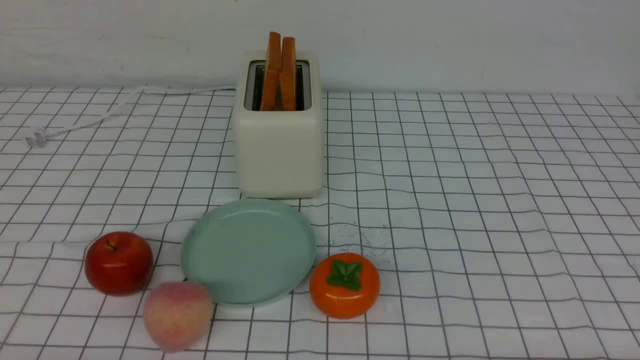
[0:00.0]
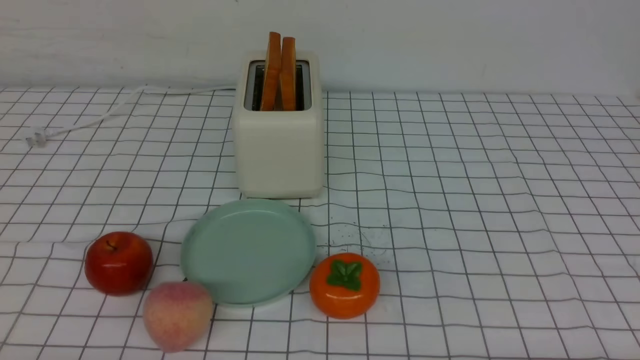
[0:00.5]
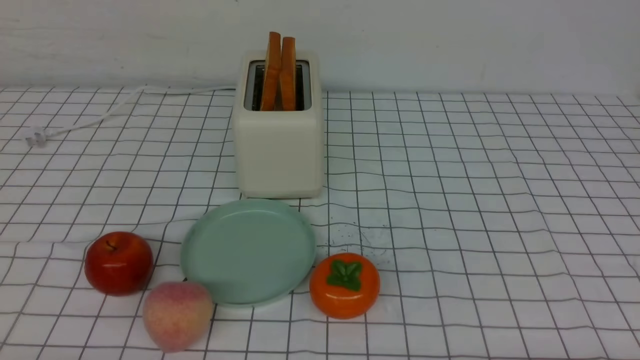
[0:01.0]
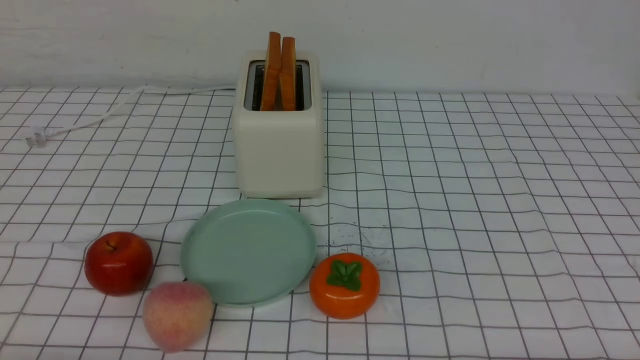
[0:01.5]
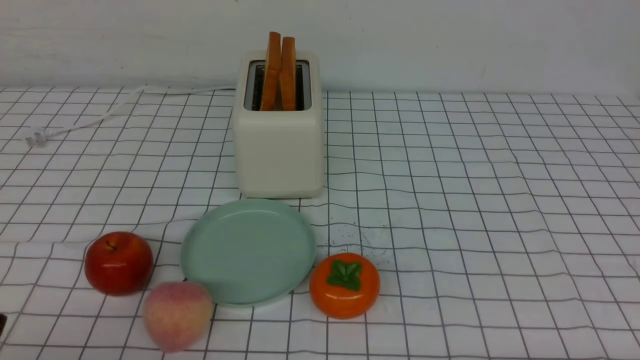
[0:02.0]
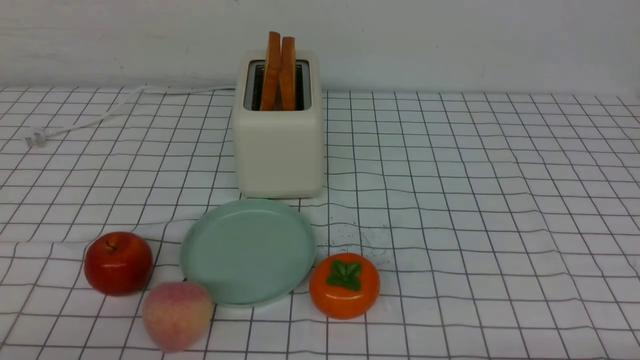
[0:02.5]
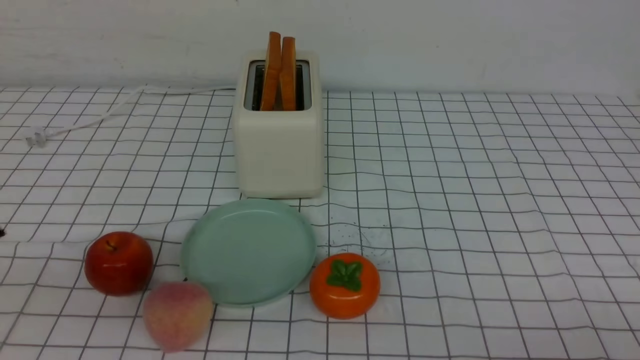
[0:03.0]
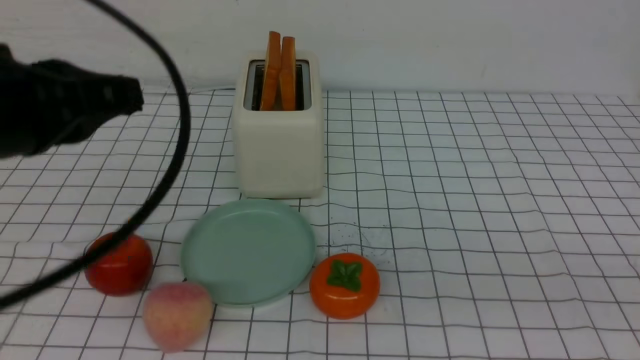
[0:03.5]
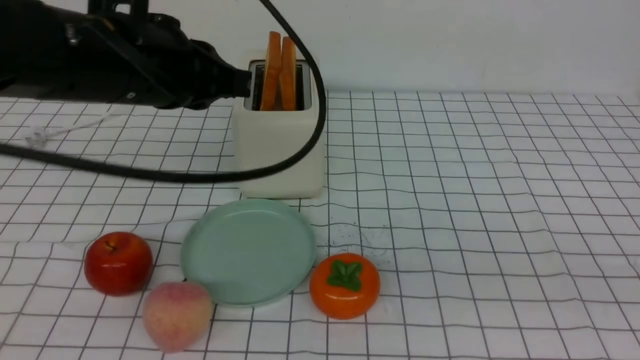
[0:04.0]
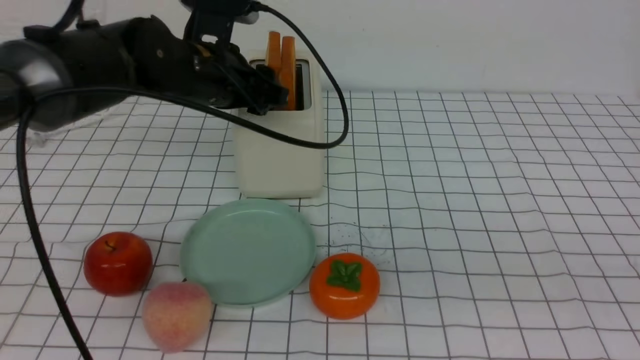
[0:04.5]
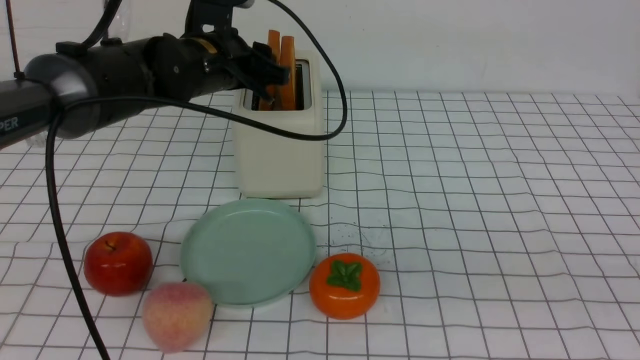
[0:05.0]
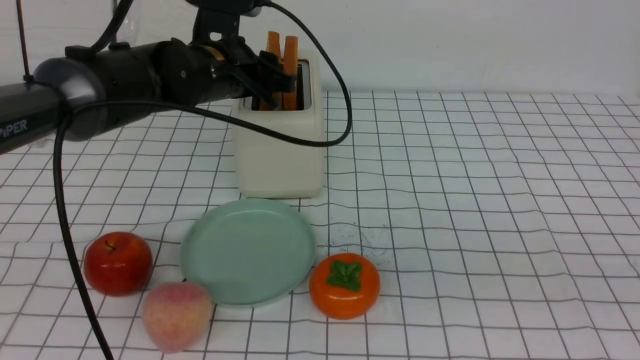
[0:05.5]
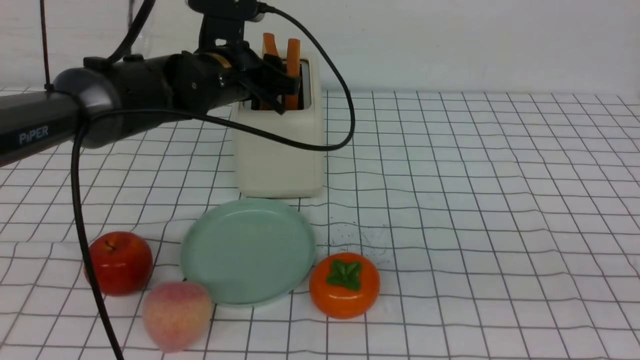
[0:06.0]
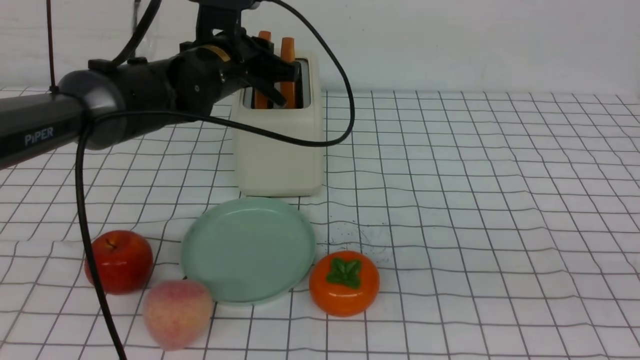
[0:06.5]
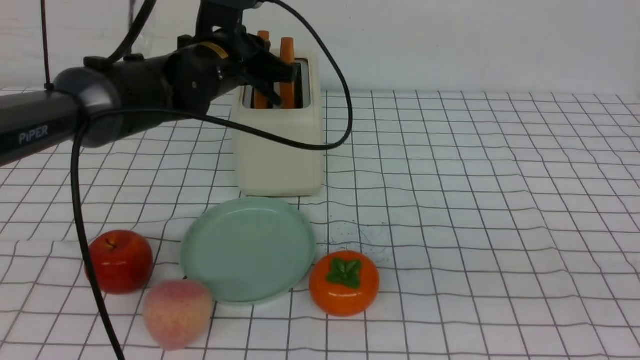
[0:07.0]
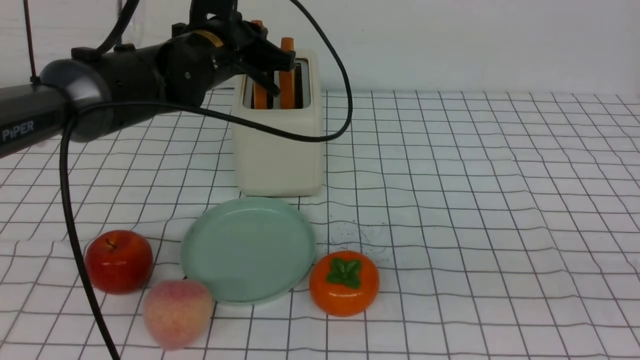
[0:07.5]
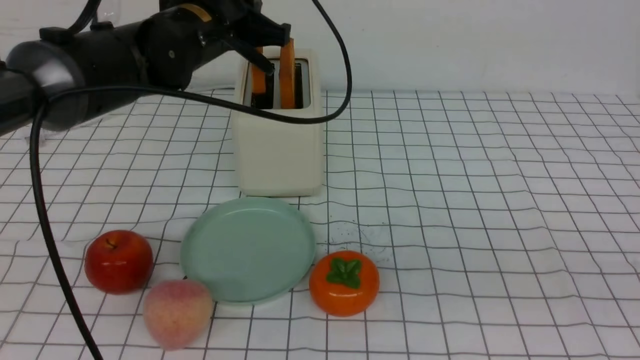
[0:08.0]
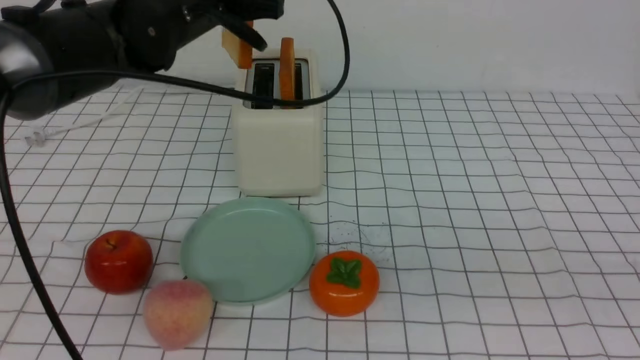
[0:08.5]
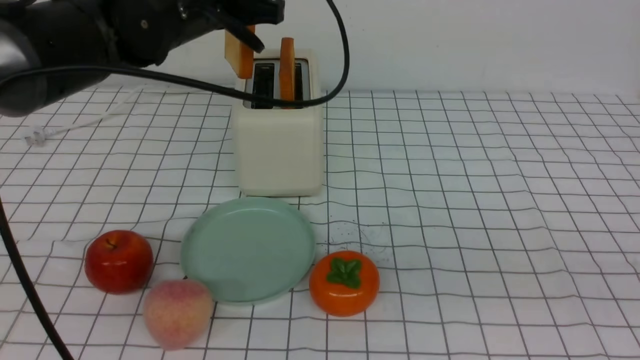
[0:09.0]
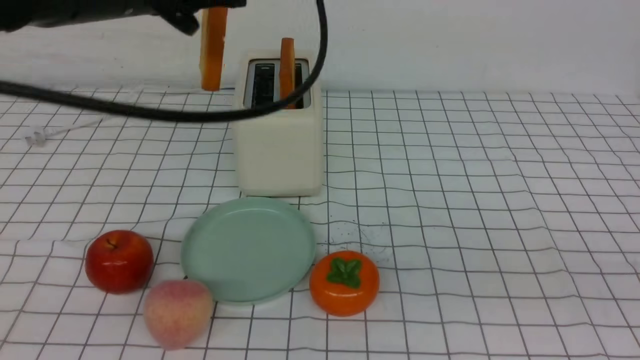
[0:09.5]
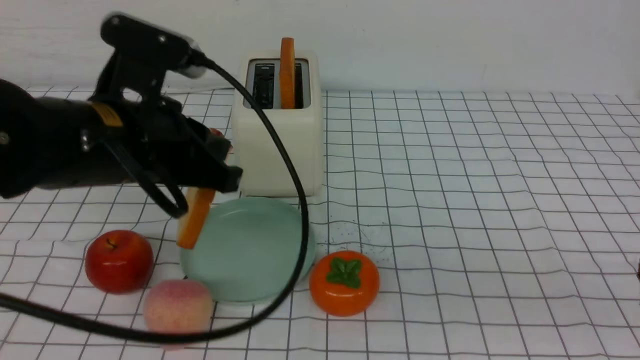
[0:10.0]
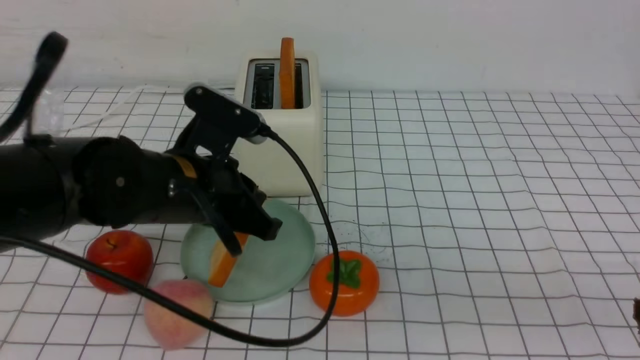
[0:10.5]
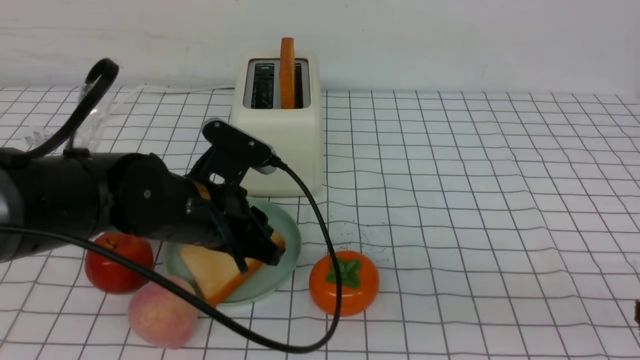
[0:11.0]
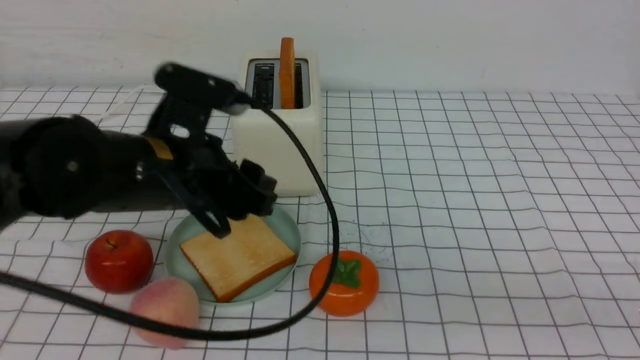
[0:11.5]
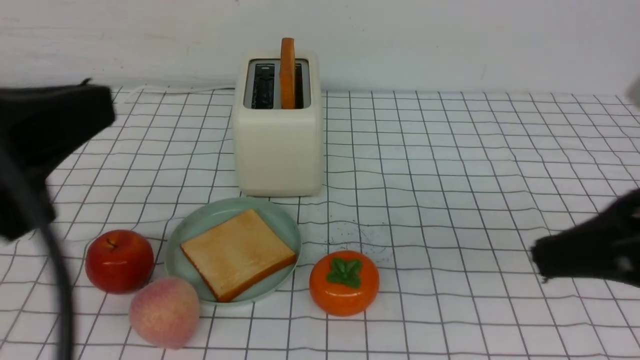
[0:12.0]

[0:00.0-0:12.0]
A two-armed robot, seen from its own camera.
Task of the whole recording: take toasted bread from bread machine on white checkered table place on plate.
Step, 0:00.0 to 0:08.0: use the left arm to take out a slice of bread.
Step, 0:08.5 to 0:11.0: use the left arm to put a slice of bread into the empty plate.
0:02.0 to 0:04.0: The left gripper is displaced forward, upward and to the right by some 30 cm; the right gripper goes approximately 20 cm upward, and closes up.
0:04.0 to 0:06.0: The left gripper shifts about 15 cm forward and downward, and opens up.
0:06.0 to 0:08.0: The left gripper shifts approximately 5 cm upward, and closes.
0:08.0 to 0:10.0: The left gripper heads backward, covering about 15 cm.
0:10.0 to 0:12.0: The right gripper travels forward by approximately 10 cm; the left gripper is displaced backward and upward by about 15 cm, and opens, then closes once more.

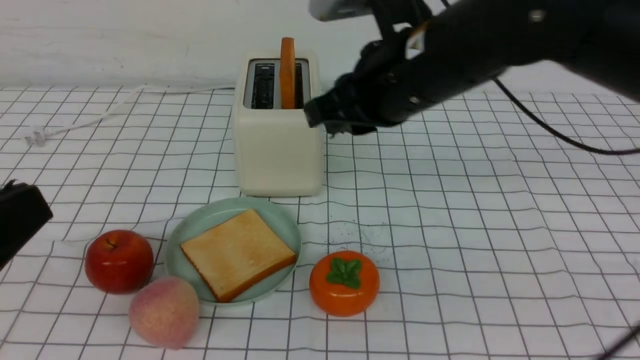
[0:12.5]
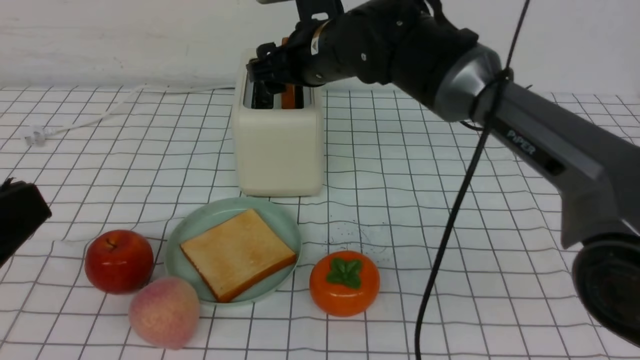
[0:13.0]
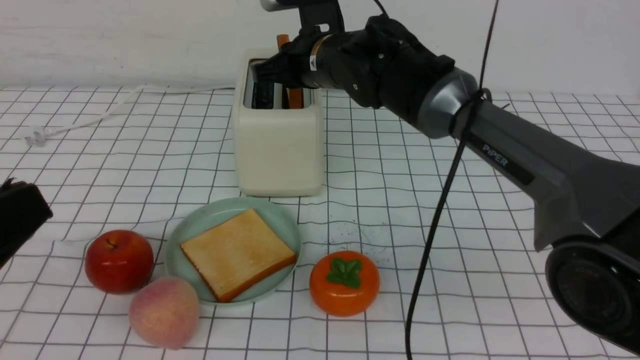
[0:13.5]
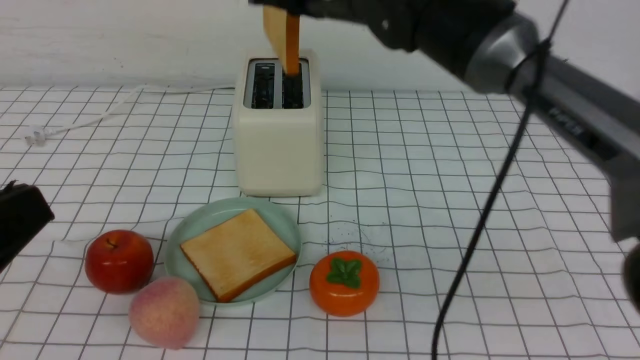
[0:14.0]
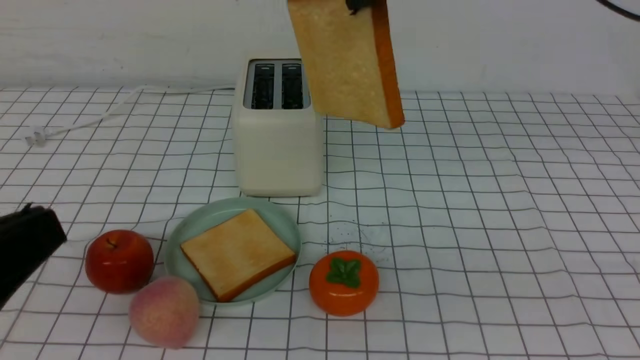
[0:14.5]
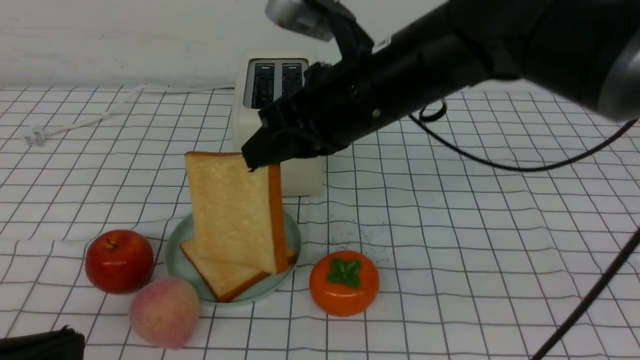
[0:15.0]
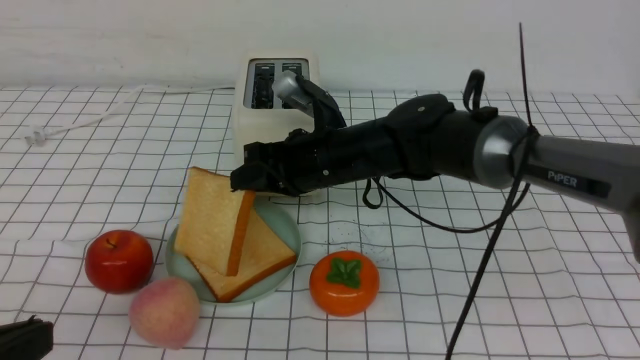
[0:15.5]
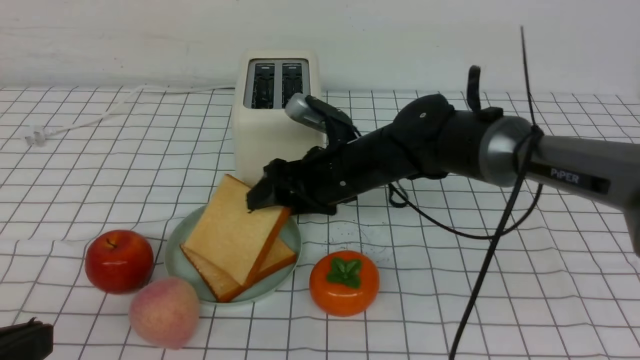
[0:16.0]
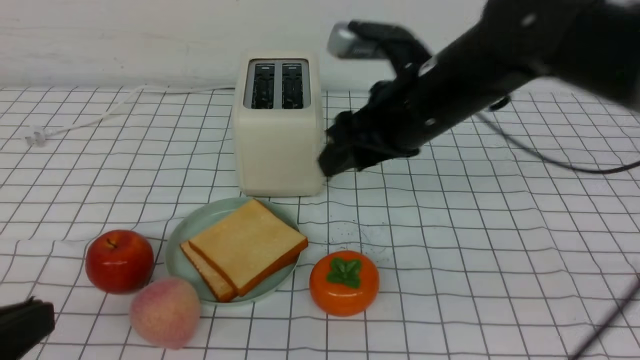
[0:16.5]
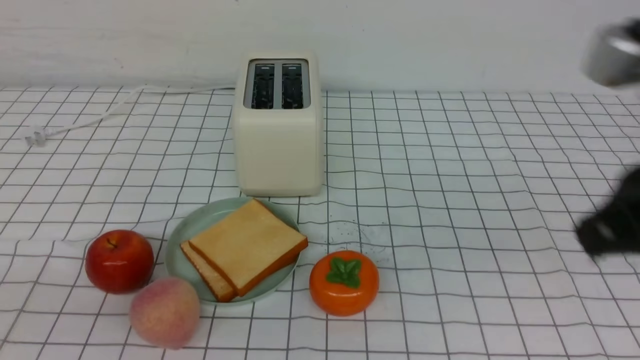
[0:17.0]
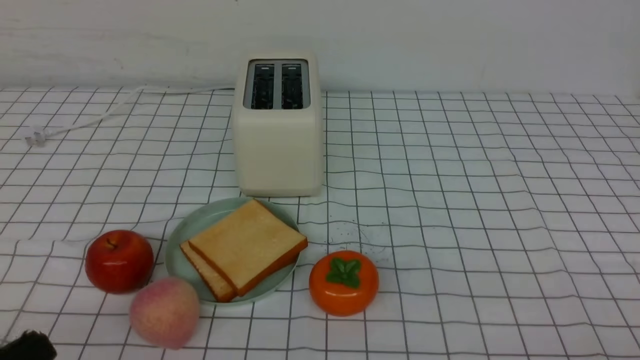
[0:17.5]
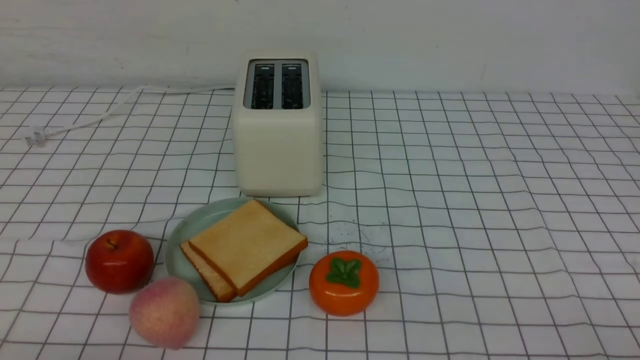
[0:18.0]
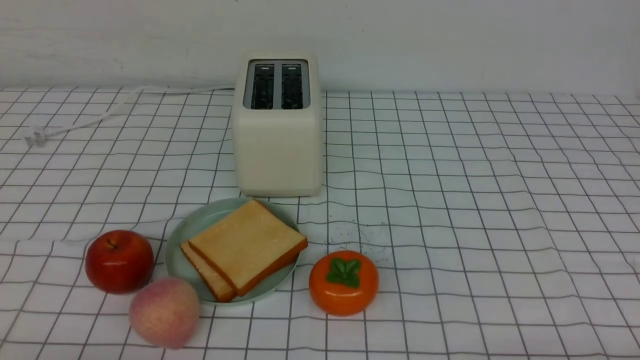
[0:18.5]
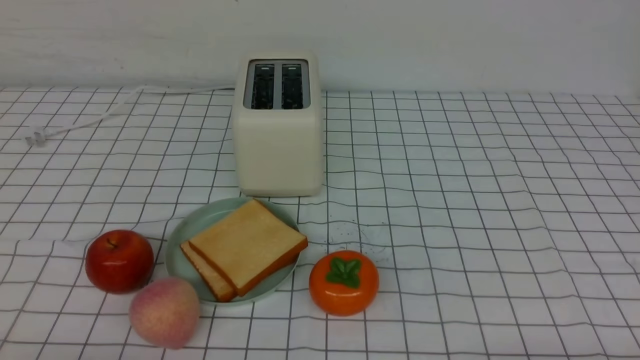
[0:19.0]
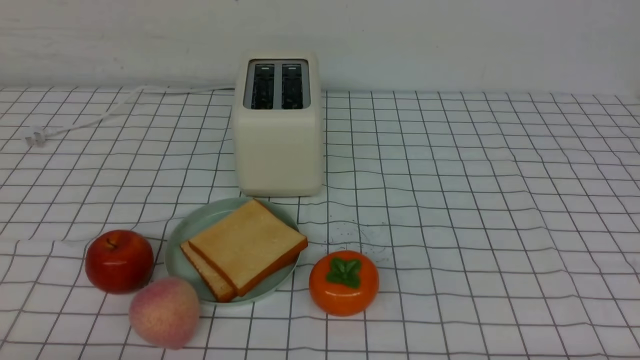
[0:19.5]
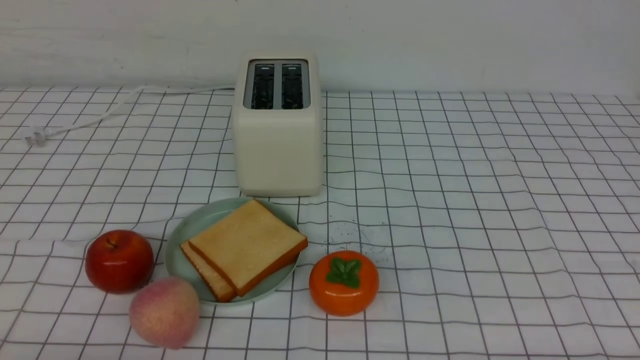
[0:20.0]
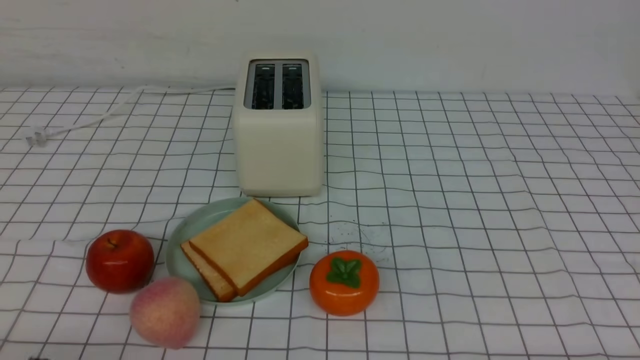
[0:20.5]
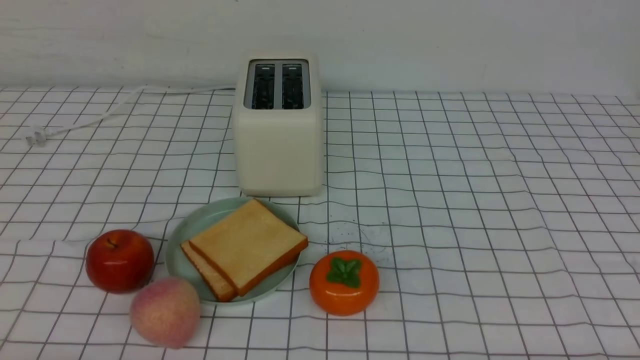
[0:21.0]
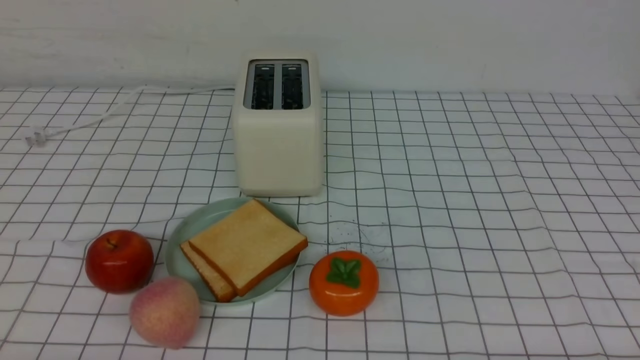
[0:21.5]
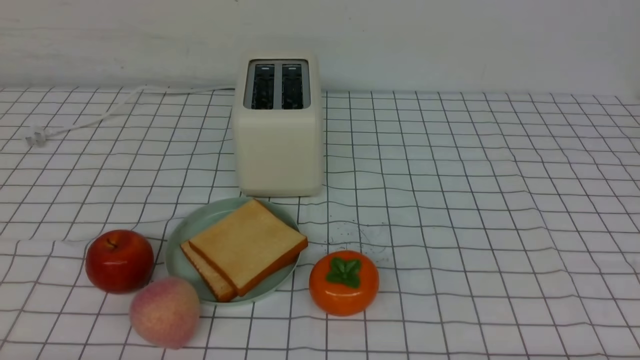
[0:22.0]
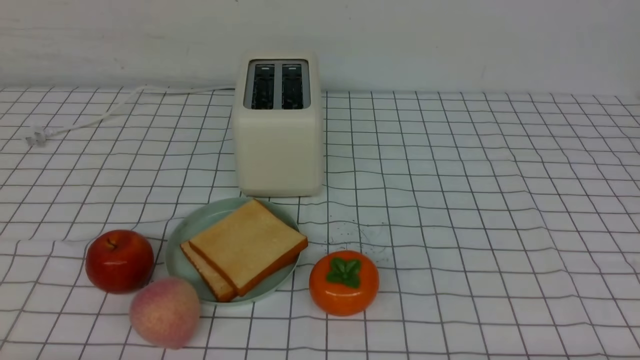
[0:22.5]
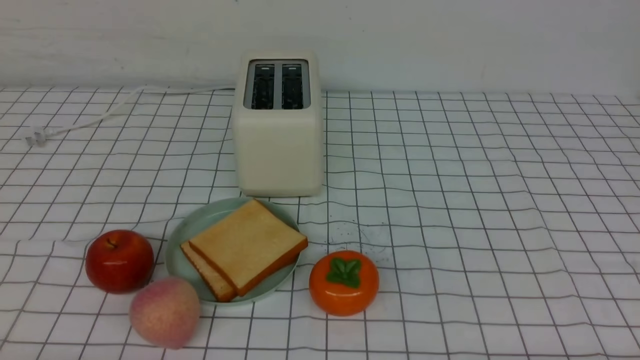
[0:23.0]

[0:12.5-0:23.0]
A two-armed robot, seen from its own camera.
Task of the whole recording: take toasted bread from bread machine on white checkered table place on plate.
Step, 0:14.0 to 0:16.0: use the right arm to put a slice of bread into the plate.
0:12.5 to 0:14.5: The right gripper is displaced upward by about 10 cm, and opens, then closes again.
0:14.5 to 0:16.5: The right gripper heads downward, covering approximately 15 cm, and opens.
0:16.5 to 0:19.0: The right gripper moves backward, to the right and downward, roughly 40 cm, and closes, while the left gripper goes roughly 10 cm downward.
0:21.0 to 0:23.0: The two grippers keep their place.
